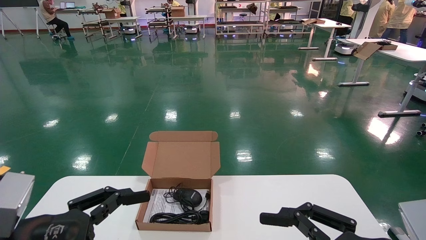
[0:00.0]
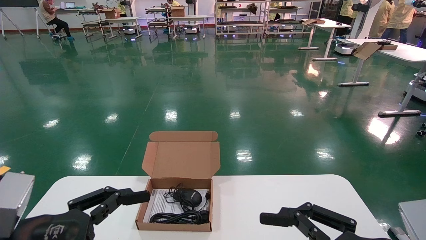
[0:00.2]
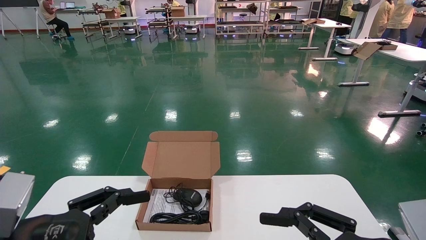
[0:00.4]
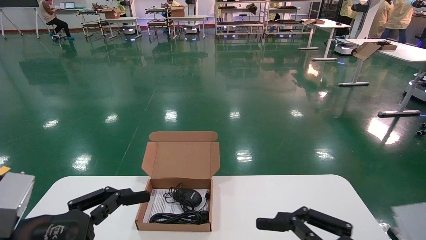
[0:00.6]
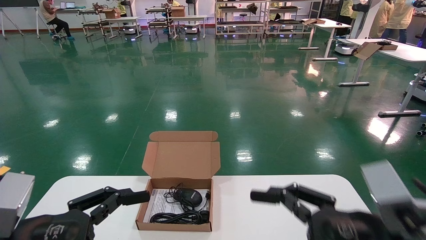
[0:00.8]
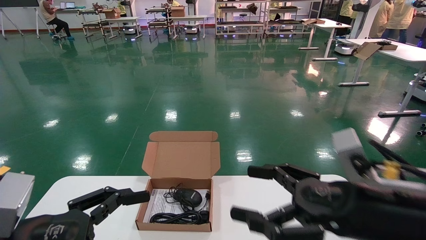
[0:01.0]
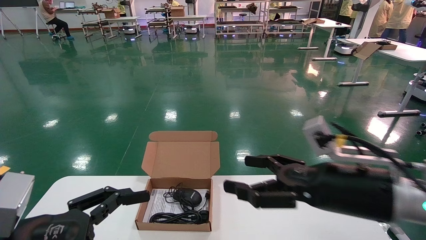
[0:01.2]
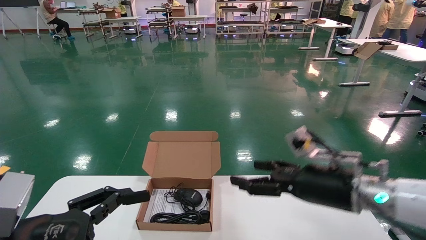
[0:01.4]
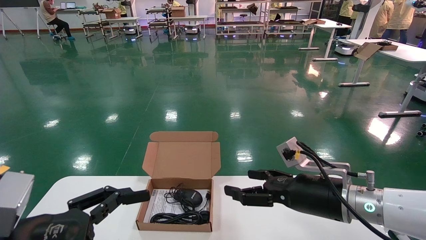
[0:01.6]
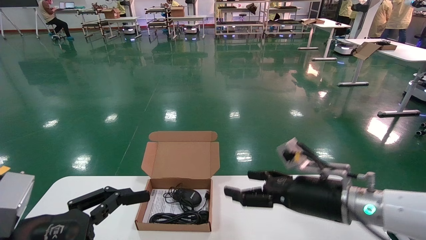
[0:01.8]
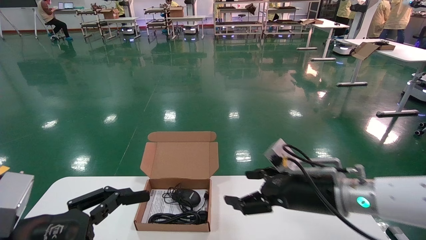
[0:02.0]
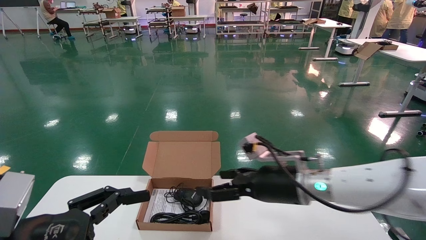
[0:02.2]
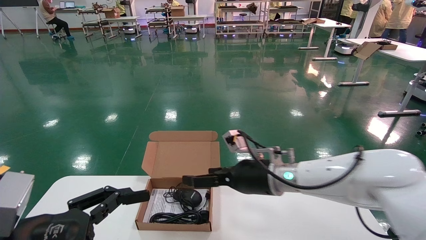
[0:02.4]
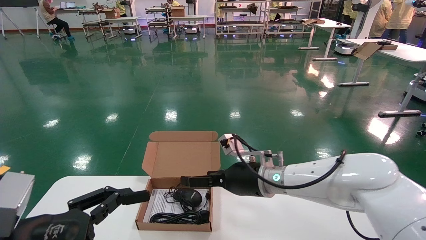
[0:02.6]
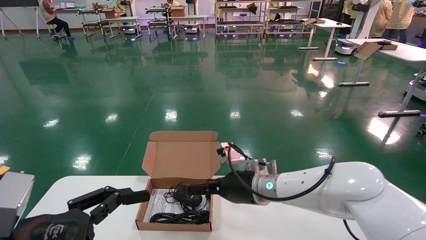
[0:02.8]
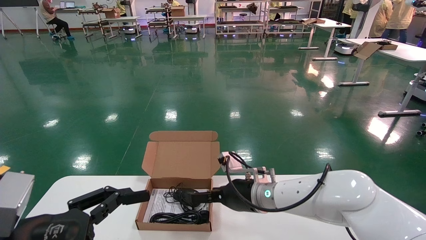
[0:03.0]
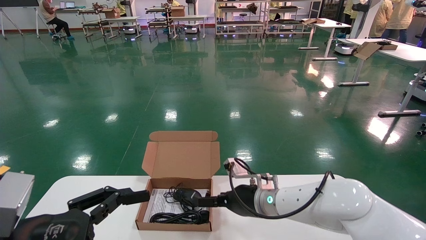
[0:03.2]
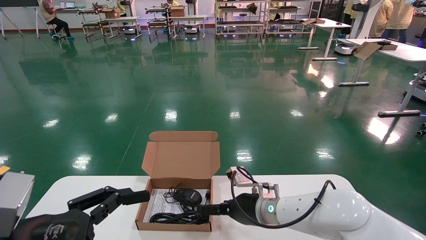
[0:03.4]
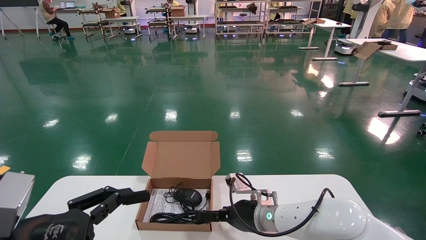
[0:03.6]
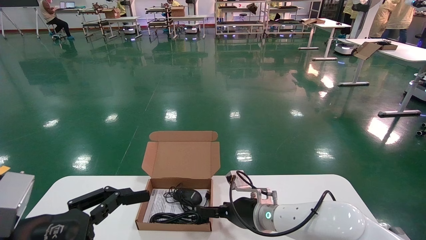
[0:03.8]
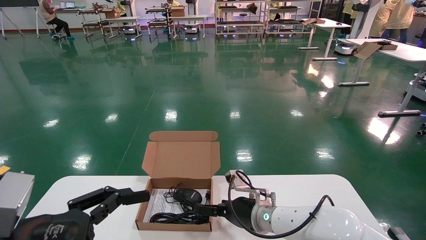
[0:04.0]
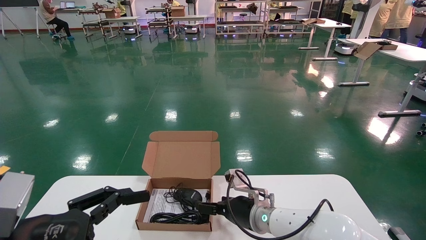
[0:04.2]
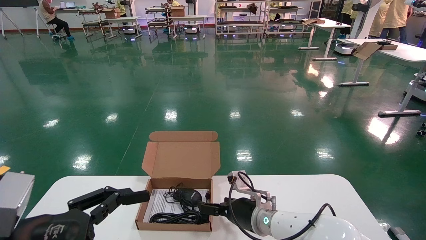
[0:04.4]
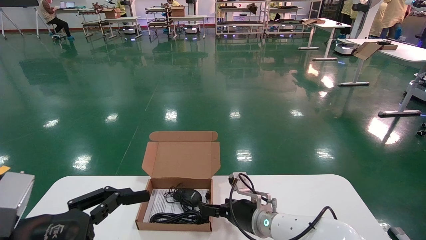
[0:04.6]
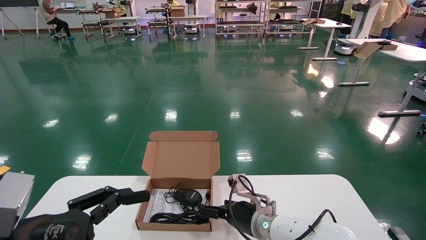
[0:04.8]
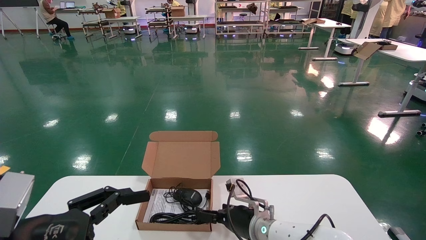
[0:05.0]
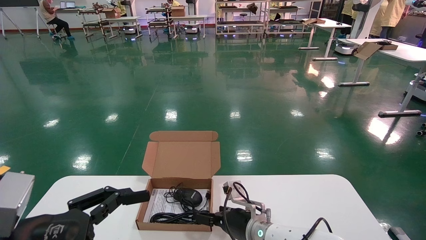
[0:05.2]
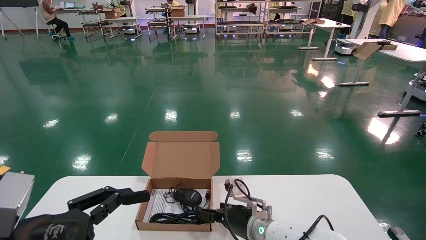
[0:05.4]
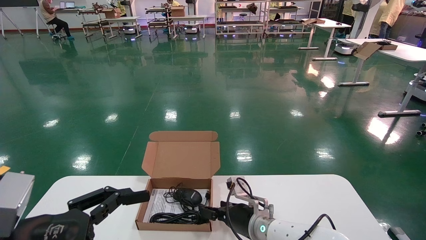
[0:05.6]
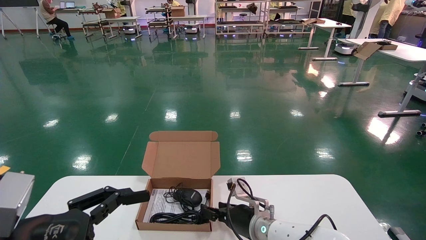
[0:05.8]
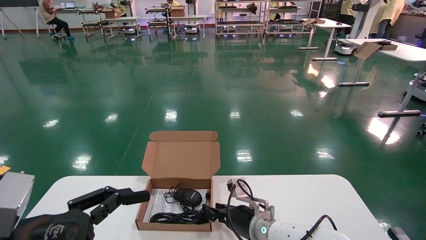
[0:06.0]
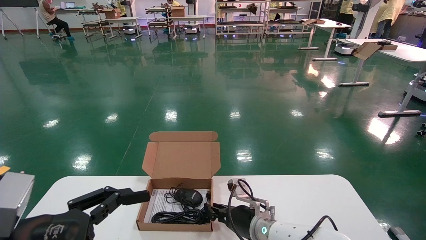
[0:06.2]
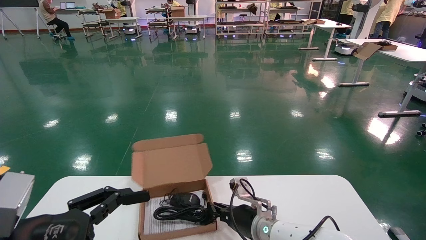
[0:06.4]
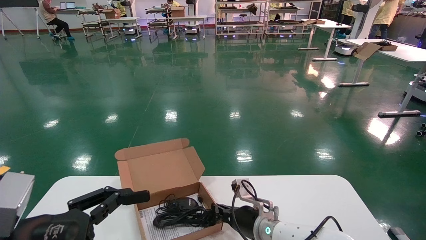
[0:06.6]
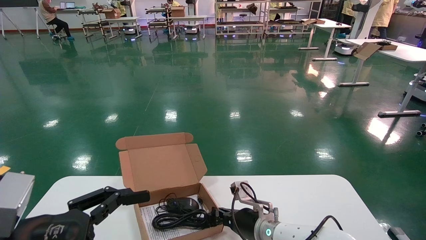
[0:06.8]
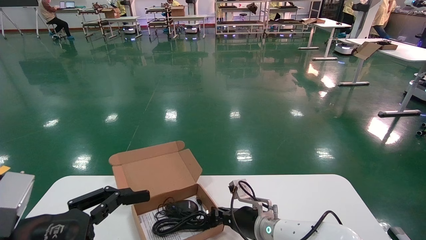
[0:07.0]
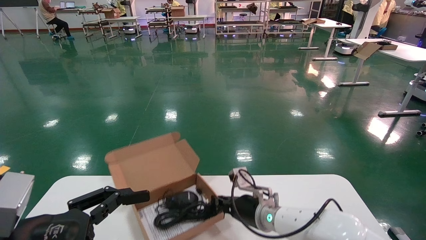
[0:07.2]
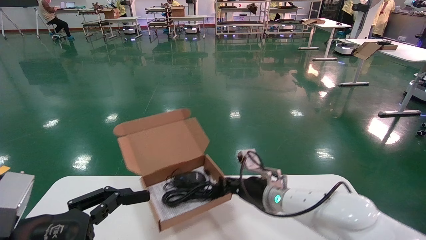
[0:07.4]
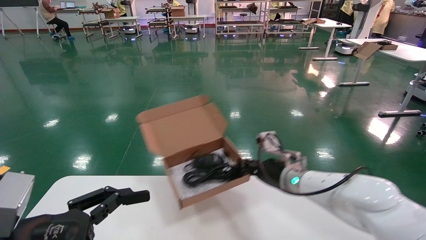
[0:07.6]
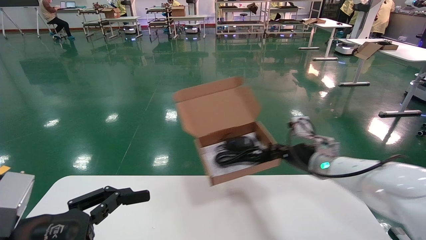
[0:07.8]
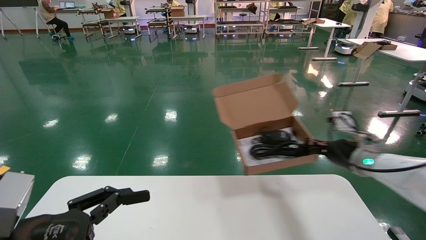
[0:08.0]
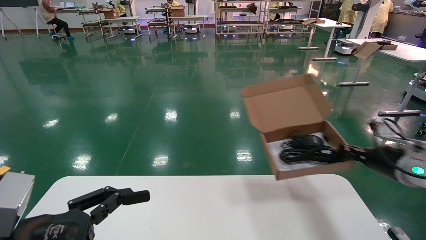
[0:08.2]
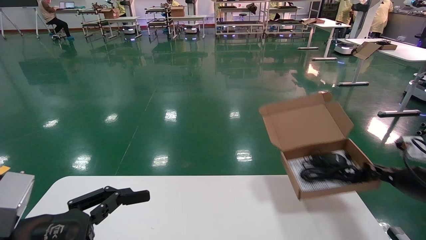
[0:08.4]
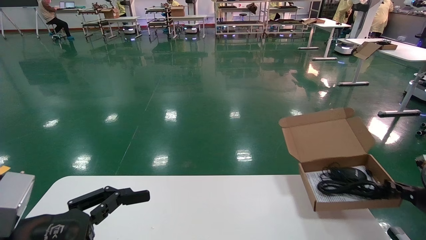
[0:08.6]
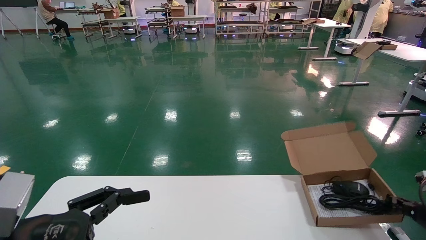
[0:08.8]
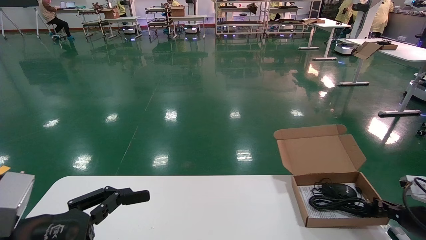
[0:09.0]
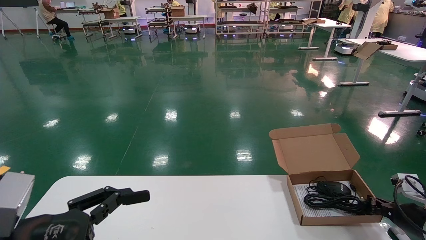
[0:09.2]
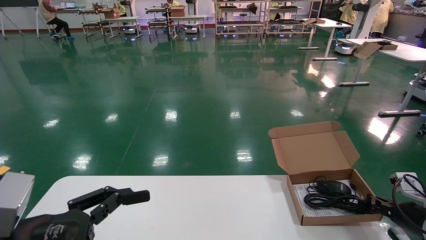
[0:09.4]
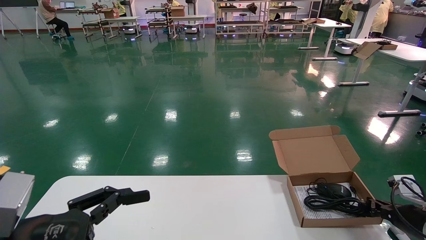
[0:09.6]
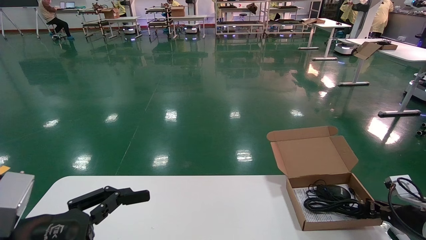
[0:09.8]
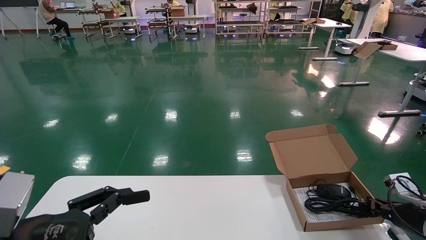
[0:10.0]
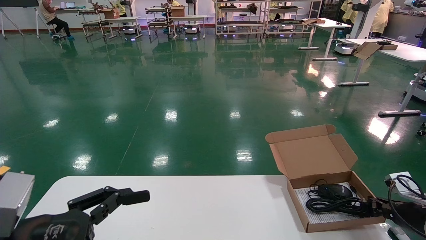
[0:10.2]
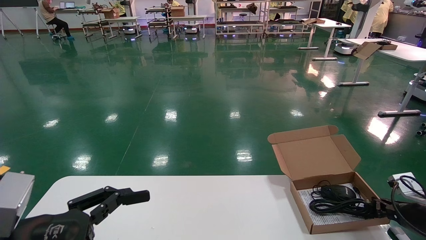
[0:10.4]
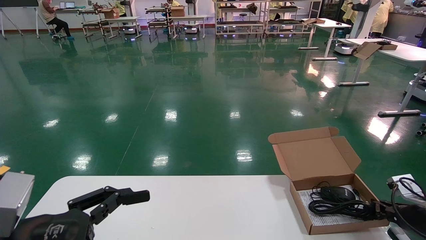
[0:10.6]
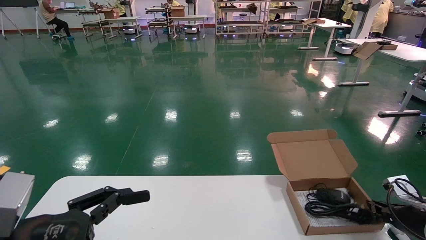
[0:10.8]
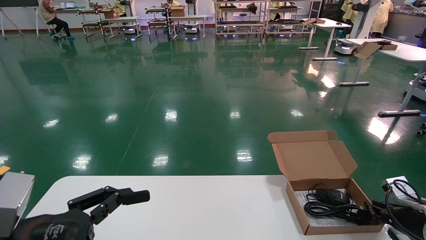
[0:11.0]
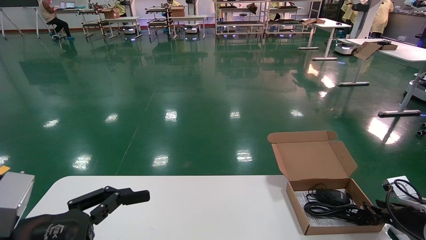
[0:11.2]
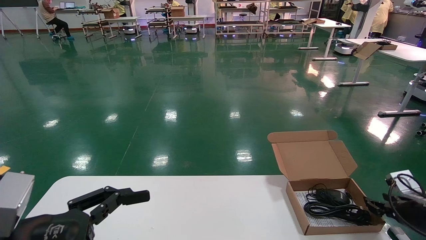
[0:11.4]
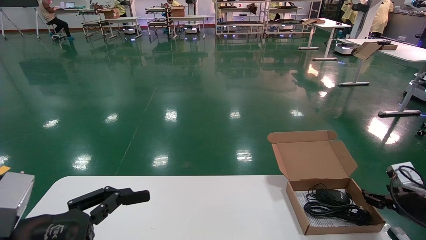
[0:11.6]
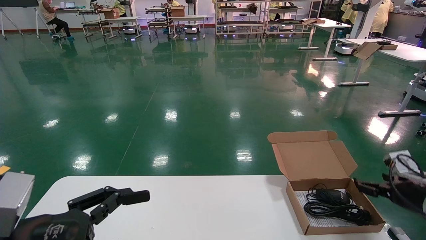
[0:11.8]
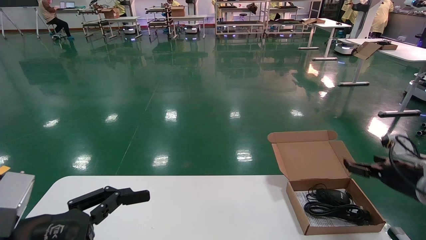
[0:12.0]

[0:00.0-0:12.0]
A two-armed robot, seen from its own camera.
Task of the whole recording: move the position of the storage box with accessories on the table.
Step, 0:01.0 to 0:06.6: Grab and pick up the open mouse box from the accessory packaging area.
Step, 0:06.8 to 0:11.2: Place the open mouse box onto the operation table.
0:00.0 to 0:01.6: The right gripper shifts some 15 cm forward.
0:01.6 to 0:03.0: The right gripper moves to the left and forward, about 15 cm.
0:03.0 to 0:04.4: The right gripper is displaced downward by about 5 cm.
0:04.4 to 0:06.0: The right gripper closes up.
0:06.0 to 0:07.6: The right gripper shifts about 15 cm upward and to the right, and closes up.
0:07.6 to 0:09.0: The right gripper is displaced to the right by some 30 cm.
0:09.0 to 0:10.4: The grippers stay close to where they were, moving slightly.
0:10.4 to 0:12.0: The right gripper goes roughly 10 cm upward, and opens its fingers.

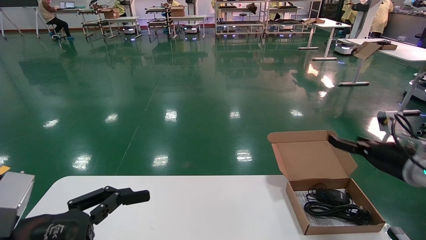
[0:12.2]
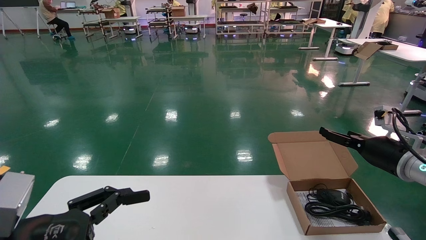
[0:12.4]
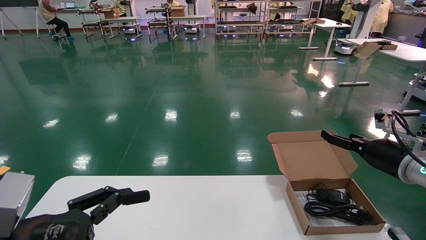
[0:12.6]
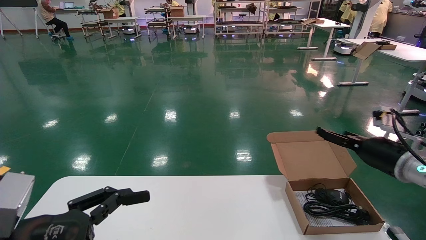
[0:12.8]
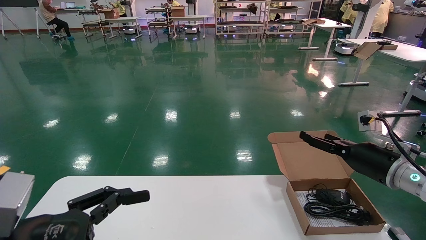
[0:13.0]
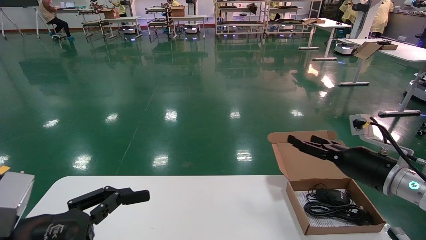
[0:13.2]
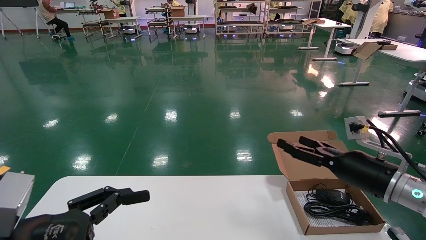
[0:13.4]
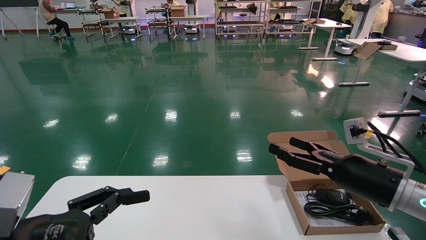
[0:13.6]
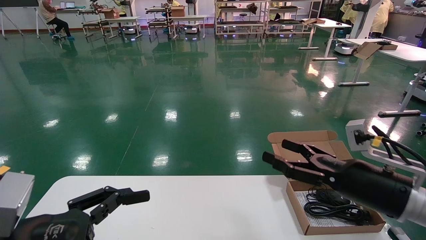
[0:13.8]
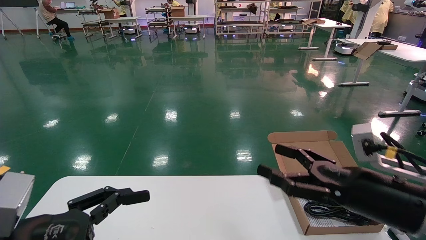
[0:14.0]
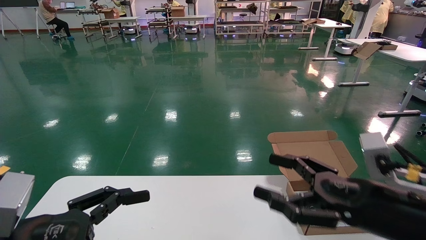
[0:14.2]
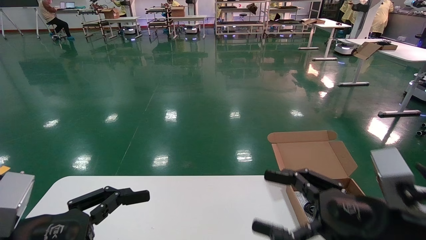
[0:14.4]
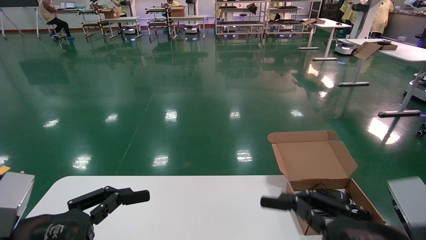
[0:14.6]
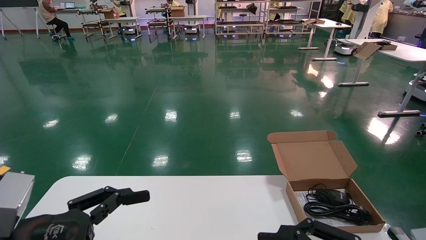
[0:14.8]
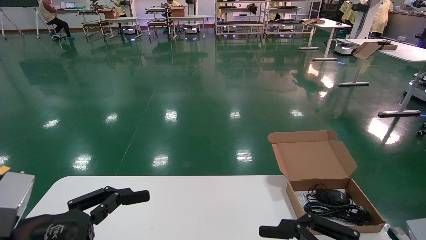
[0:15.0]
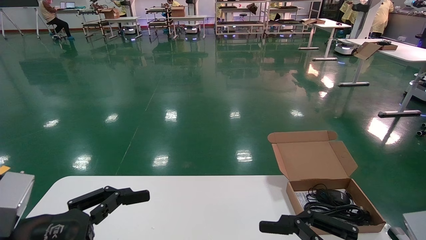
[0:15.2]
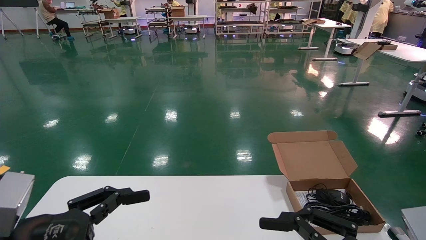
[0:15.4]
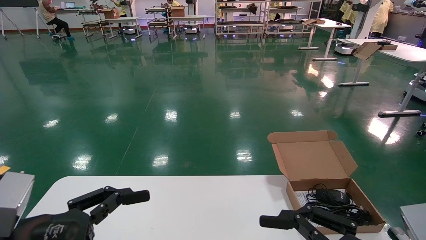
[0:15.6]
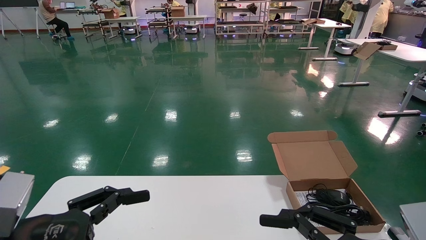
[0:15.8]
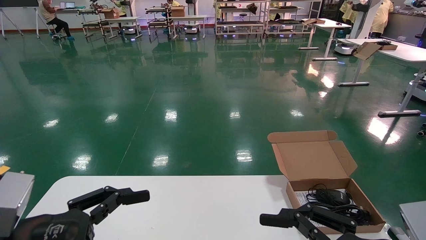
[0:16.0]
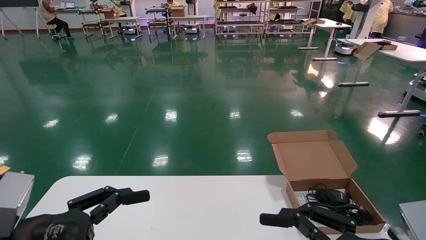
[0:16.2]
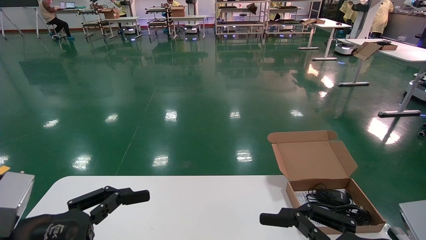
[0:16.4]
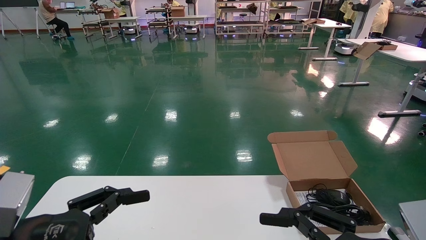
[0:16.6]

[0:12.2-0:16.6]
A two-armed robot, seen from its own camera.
Task of the whole recording: move the position of the storage box with accessories on the table.
0:12.2 to 0:13.6: The right gripper moves to the left and backward, approximately 15 cm.
0:13.6 to 0:15.2: The right gripper travels backward by about 20 cm.
0:15.2 to 0:16.6: Both grippers stay put.
